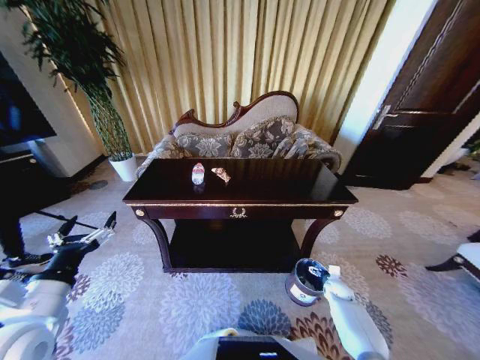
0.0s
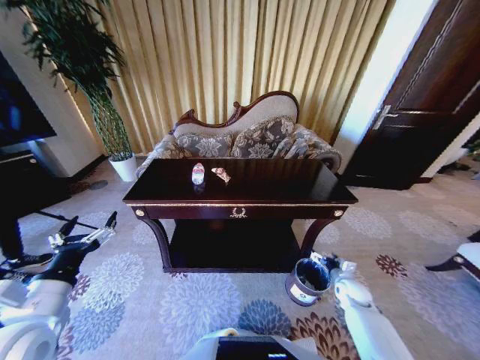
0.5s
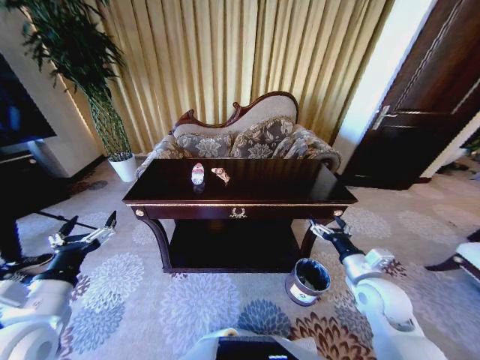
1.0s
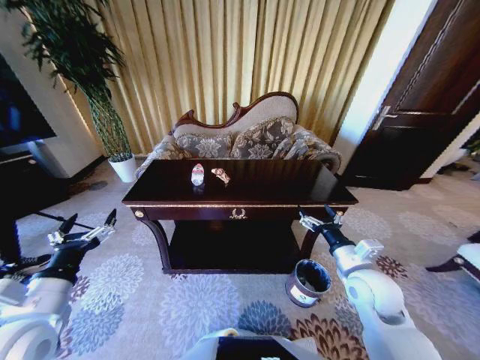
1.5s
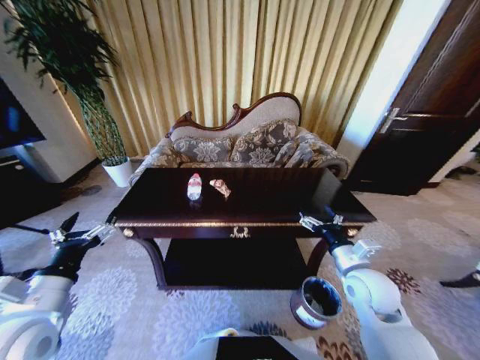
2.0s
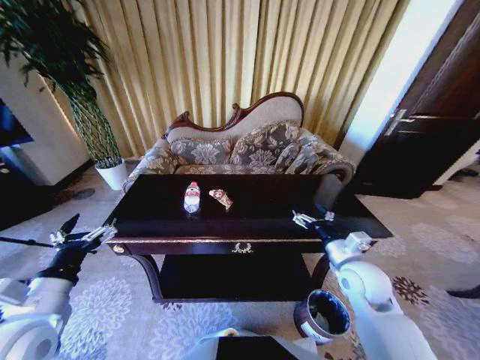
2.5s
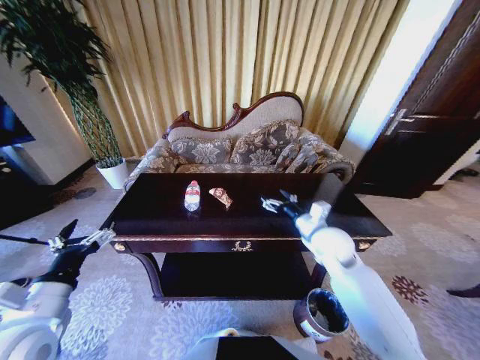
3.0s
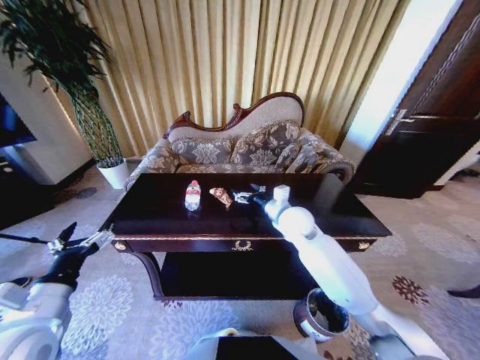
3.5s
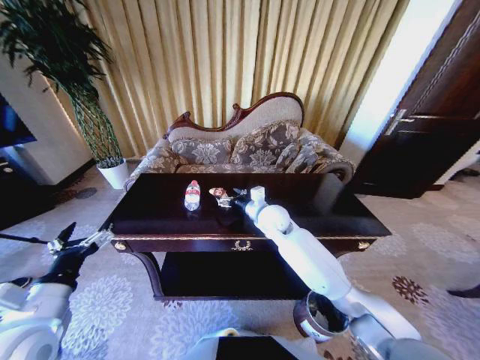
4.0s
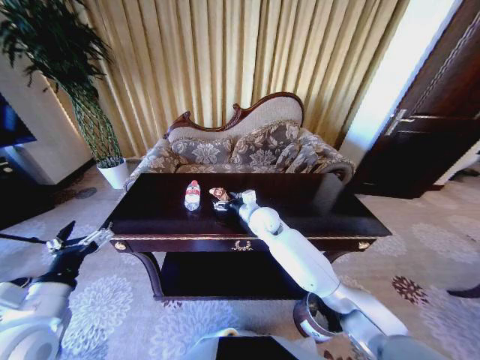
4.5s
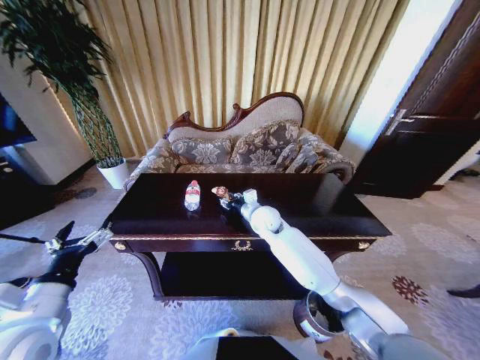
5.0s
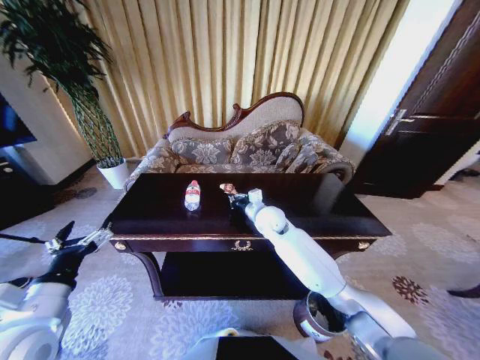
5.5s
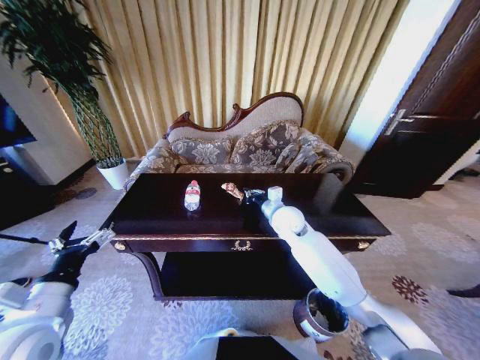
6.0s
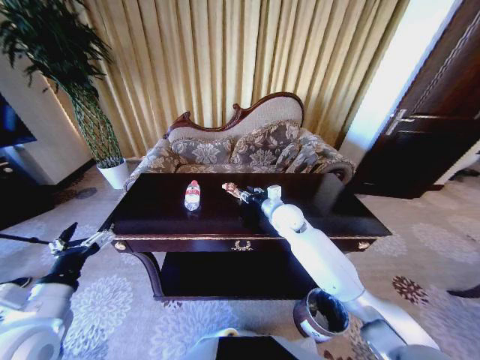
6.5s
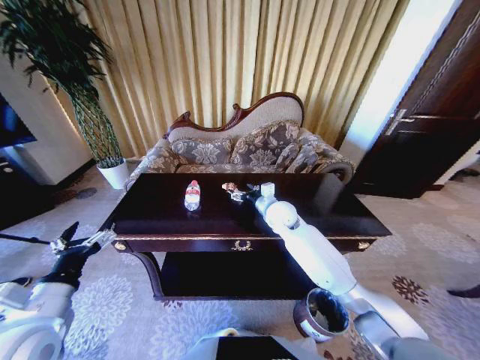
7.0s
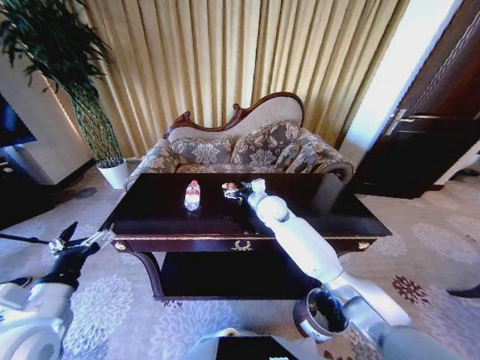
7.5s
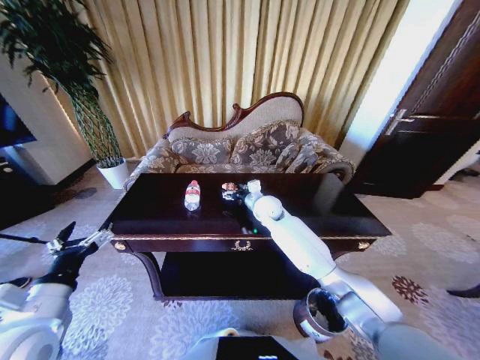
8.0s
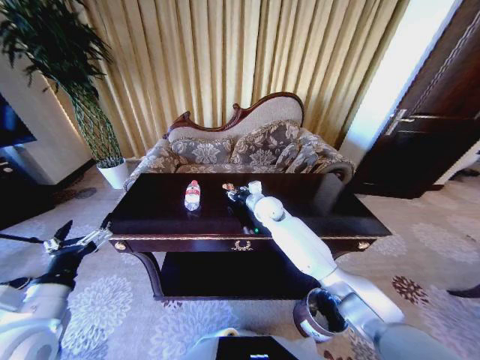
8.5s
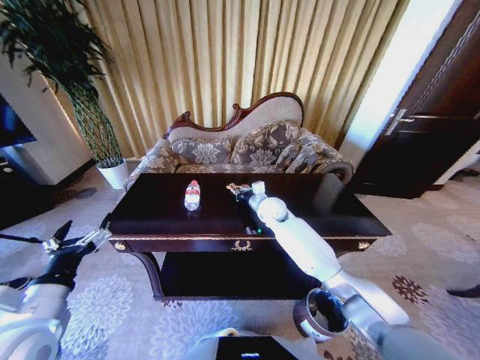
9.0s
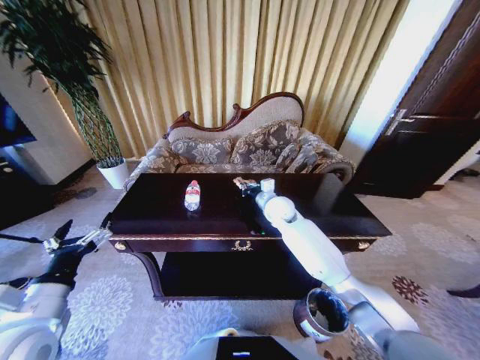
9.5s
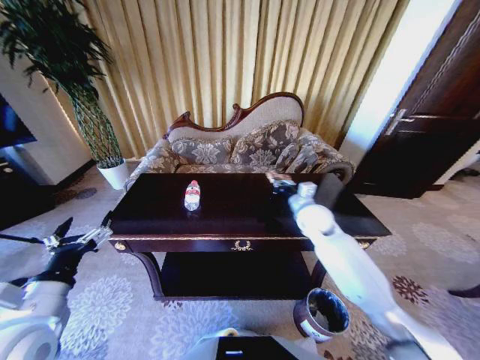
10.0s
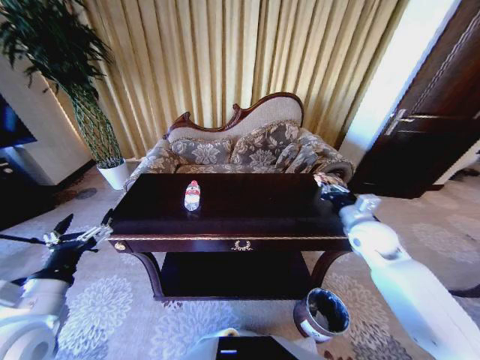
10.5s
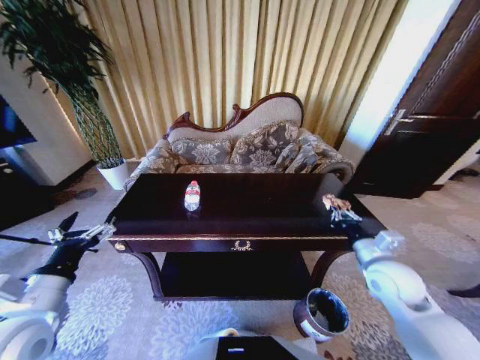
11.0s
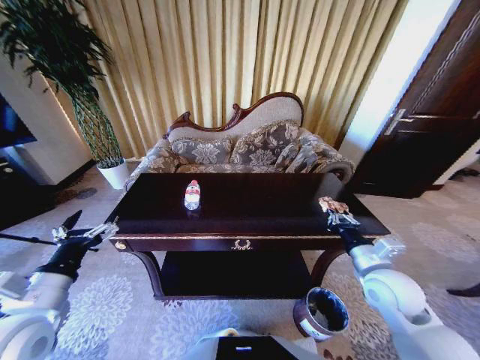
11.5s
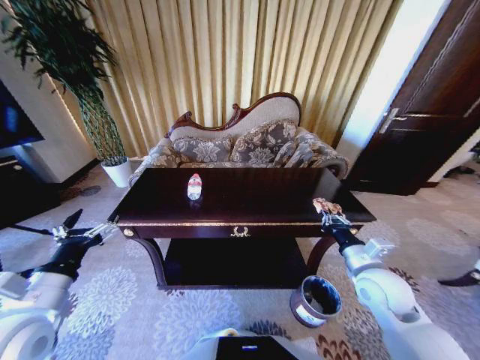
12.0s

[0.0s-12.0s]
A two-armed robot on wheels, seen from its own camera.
Task of the whole recording: Move to the front of the table and place the trash on the table into the trash bin.
0.0s to 2.0s: The right gripper goes about 30 cm upward.
2.0s to 4.0s: The right gripper travels forward and to the left by approximately 25 cm.
4.0s to 6.0s: The right gripper closes its fingers.
6.0s to 8.0s: The right gripper travels forward and to the left by roughly 10 cm, and opens.
8.0s to 10.0s: The right gripper travels to the right and backward by about 15 cm, and closes.
10.0s to 12.0s: The right gripper is displaced backward by approximately 20 cm.

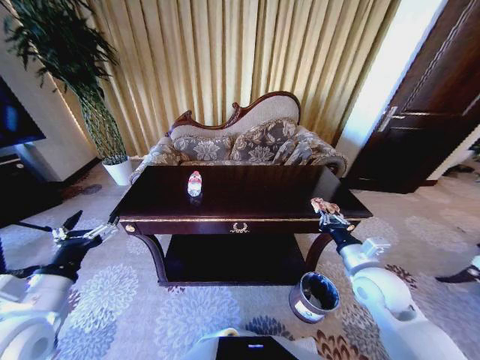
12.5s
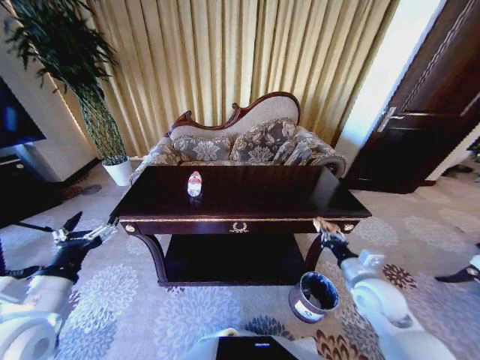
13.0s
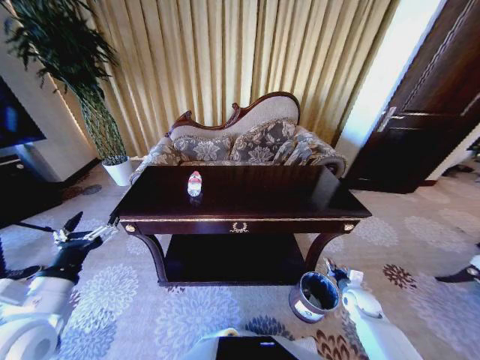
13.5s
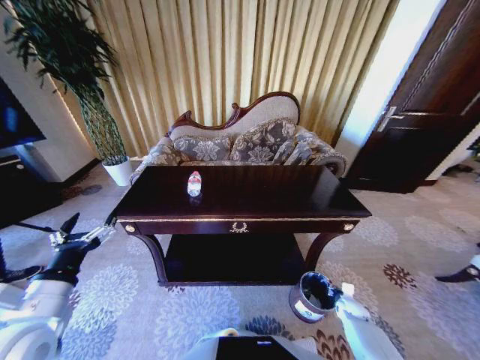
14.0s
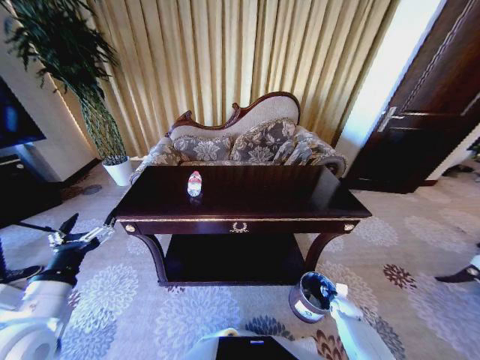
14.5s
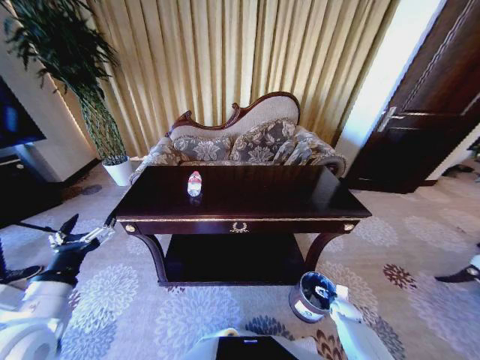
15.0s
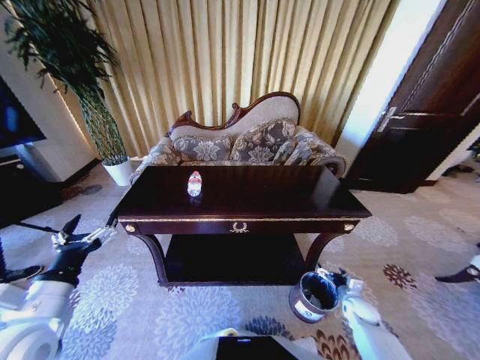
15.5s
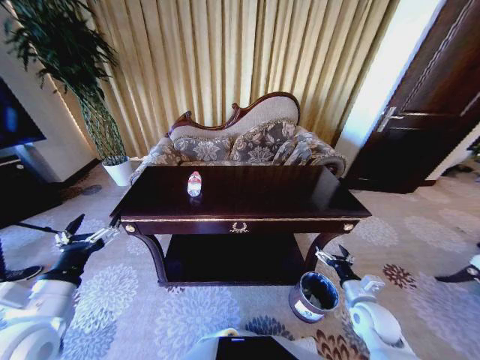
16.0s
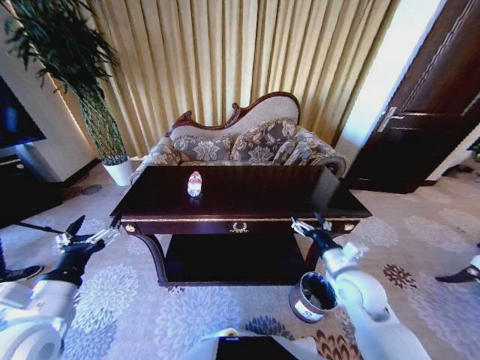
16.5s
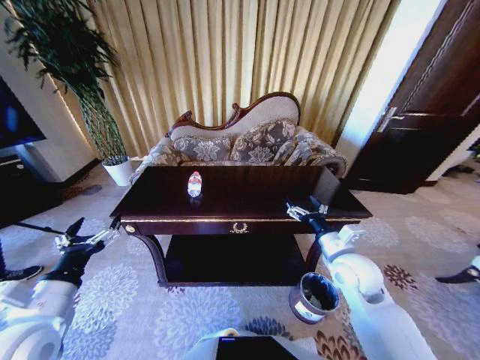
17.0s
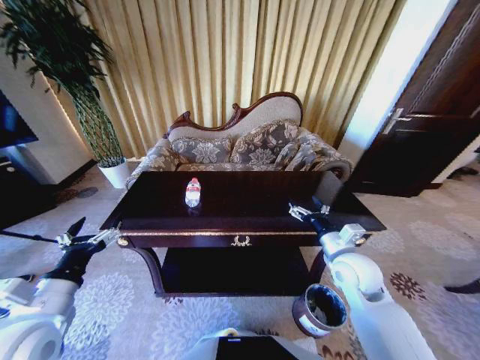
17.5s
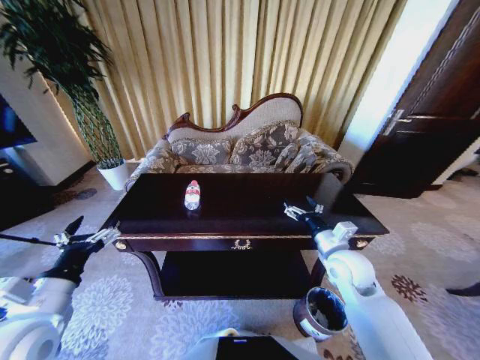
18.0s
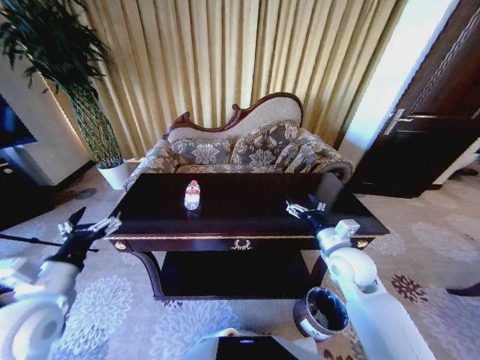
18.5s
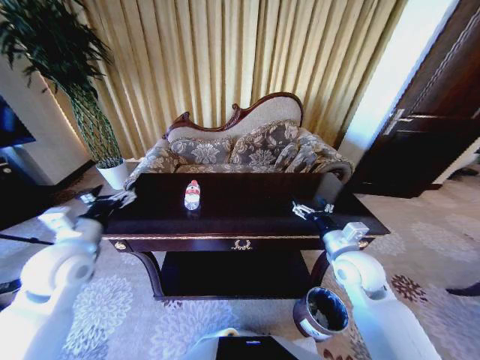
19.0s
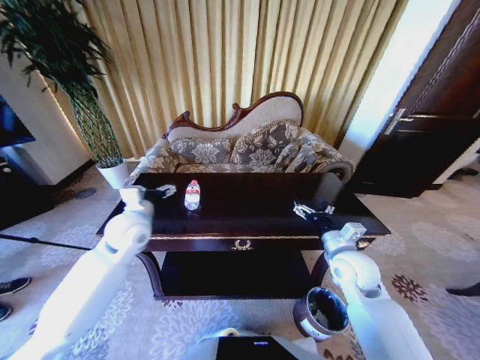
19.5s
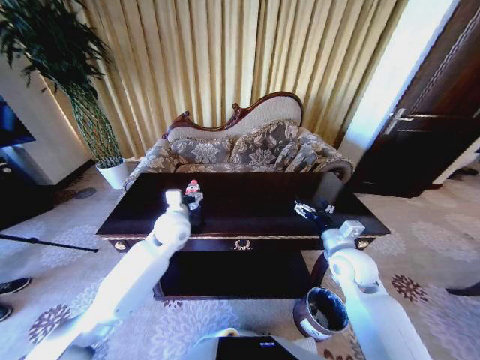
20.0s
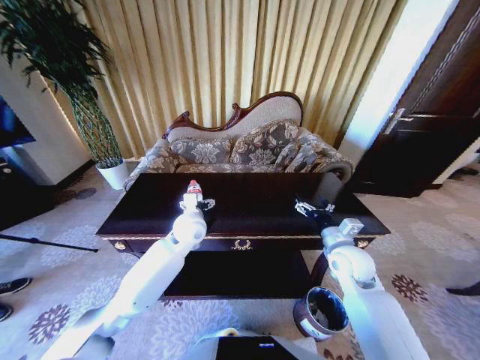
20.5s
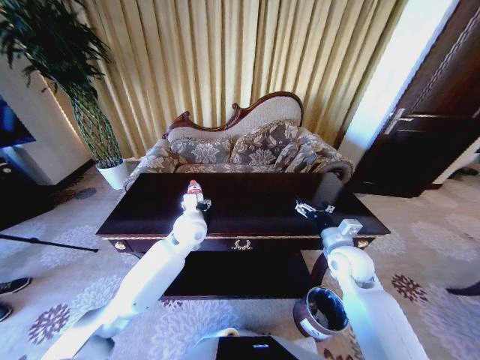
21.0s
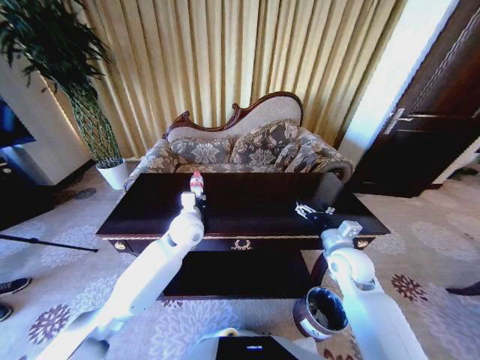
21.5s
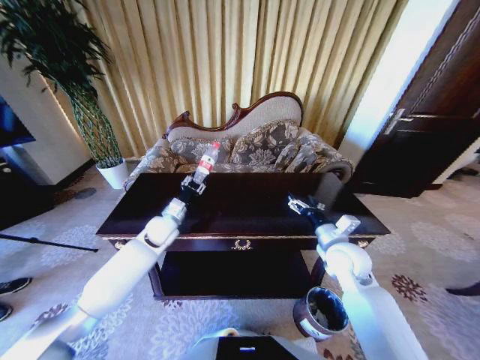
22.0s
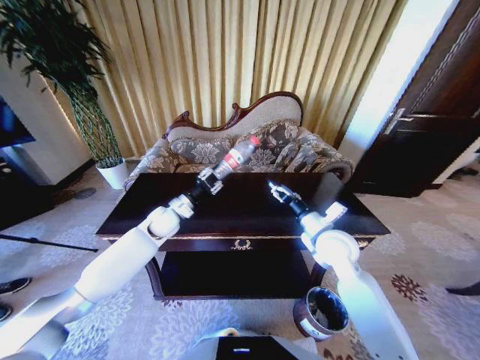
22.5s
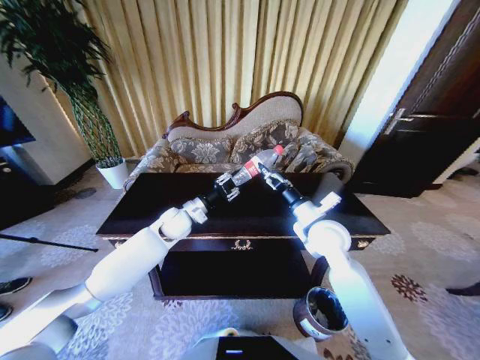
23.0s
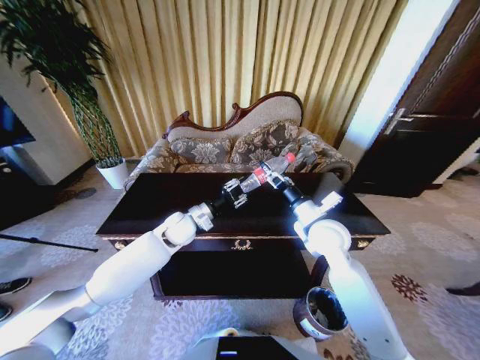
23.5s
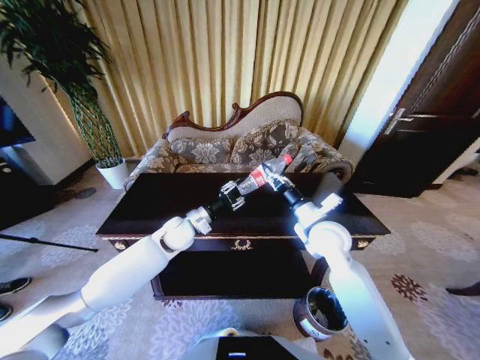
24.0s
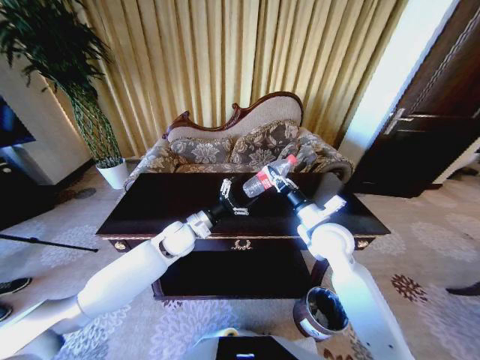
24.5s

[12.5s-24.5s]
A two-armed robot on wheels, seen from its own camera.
Task of the whole recording: Move to the front of the table and place the trash on the table into the trash bin.
12.5s to 14.5s: The right gripper goes some 35 cm downward, and opens up.
14.5s to 16.5s: The right gripper shifts about 35 cm upward and to the left, and opens.
16.5s to 18.5s: The right gripper shifts by about 5 cm.
18.5s to 20.5s: The left gripper heads forward and to the right, covering roughly 35 cm.
20.5s to 22.5s: The left gripper shifts about 10 cm to the left, and closes up, while the right gripper changes place by roughly 5 cm.
22.5s to 24.5s: The left gripper moves backward and to the right, about 10 cm, and opens its fingers. The right gripper closes its fingers.

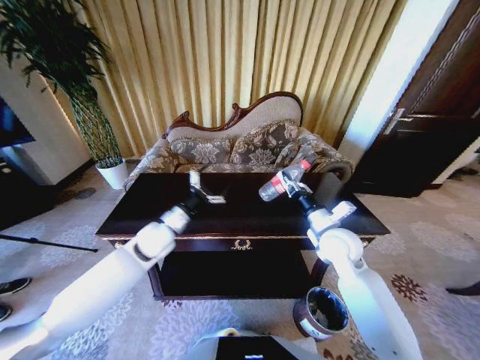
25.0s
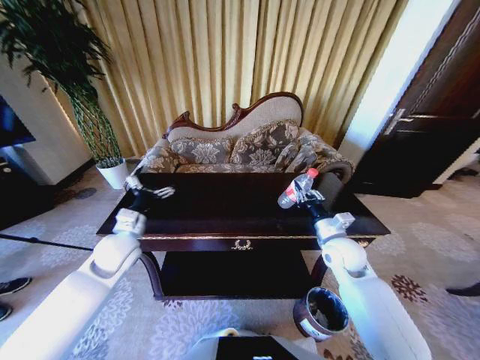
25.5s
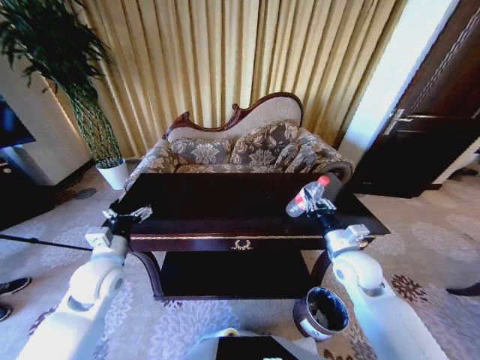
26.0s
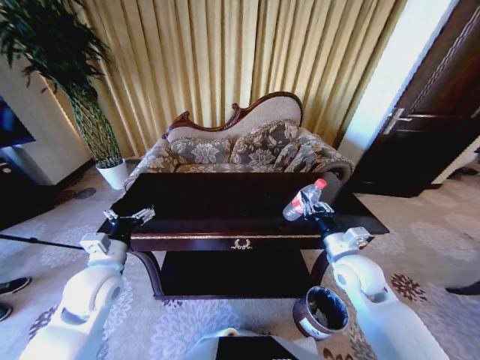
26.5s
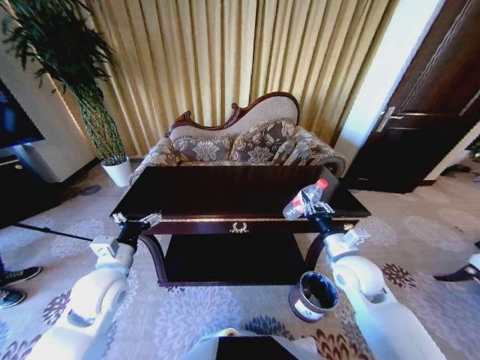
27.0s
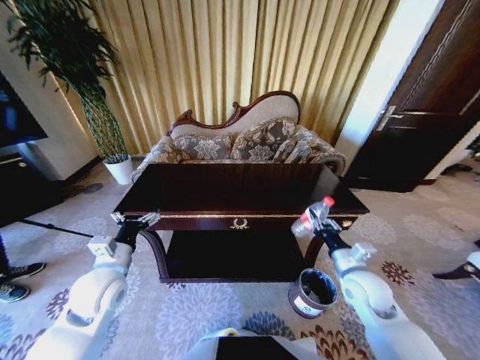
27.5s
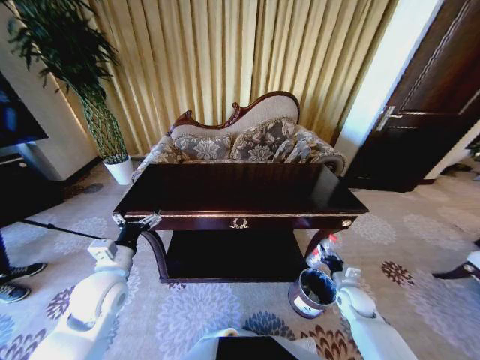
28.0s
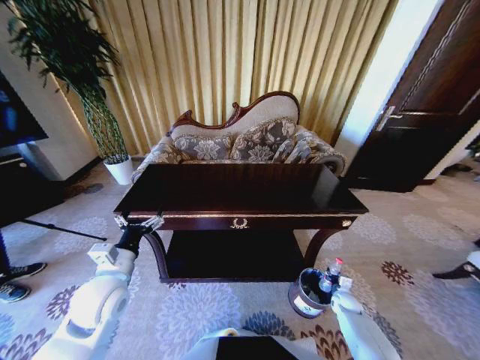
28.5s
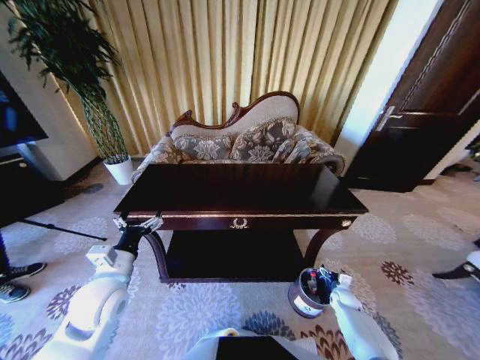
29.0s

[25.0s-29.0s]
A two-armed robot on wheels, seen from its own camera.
Task of the whole recording: Move to the front of the table and place the trash on the table into the trash bin.
25.0s to 27.0s: The right gripper goes approximately 5 cm backward, while the left gripper moves backward and to the left, about 15 cm.
27.0s to 29.0s: The right gripper is displaced downward and to the right by approximately 35 cm, and opens its fingers.
